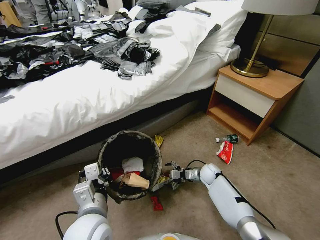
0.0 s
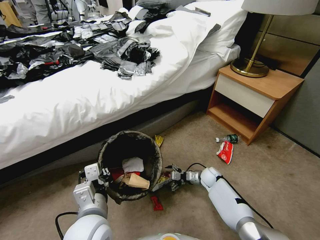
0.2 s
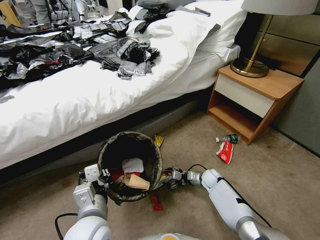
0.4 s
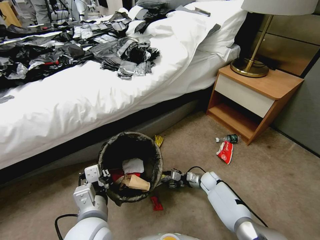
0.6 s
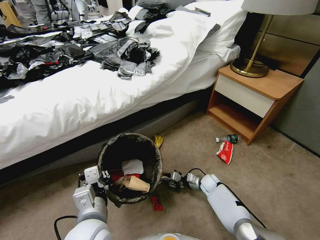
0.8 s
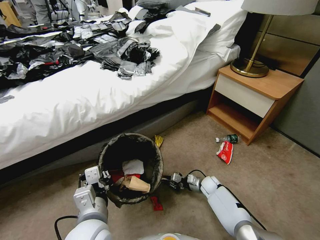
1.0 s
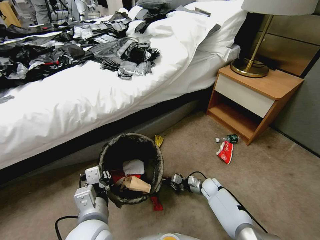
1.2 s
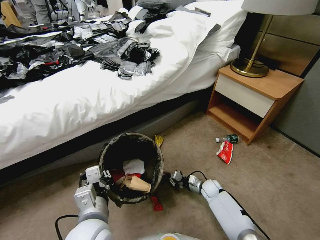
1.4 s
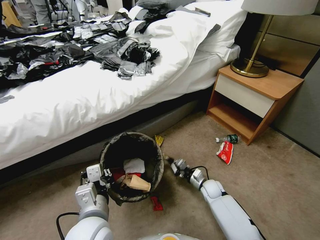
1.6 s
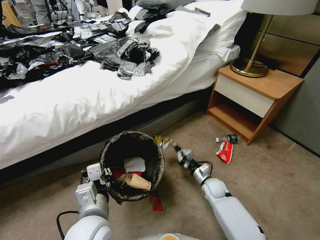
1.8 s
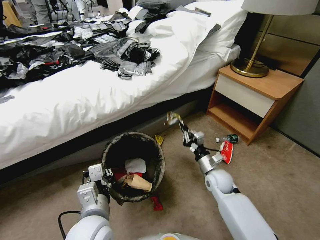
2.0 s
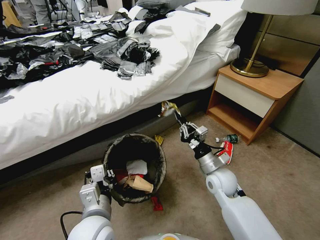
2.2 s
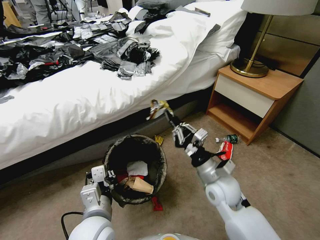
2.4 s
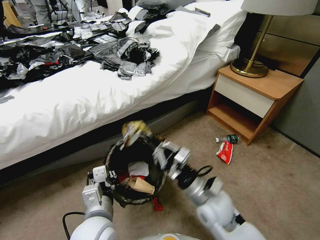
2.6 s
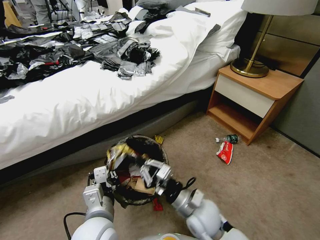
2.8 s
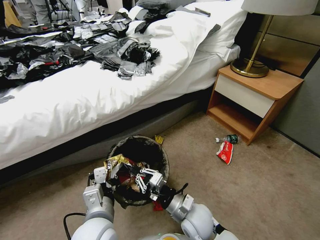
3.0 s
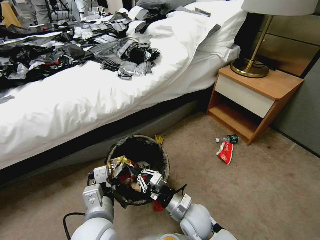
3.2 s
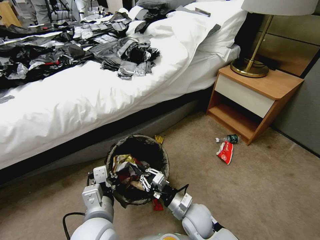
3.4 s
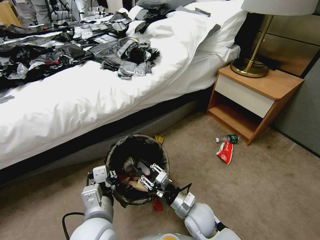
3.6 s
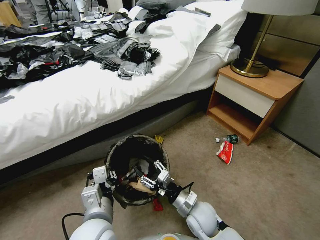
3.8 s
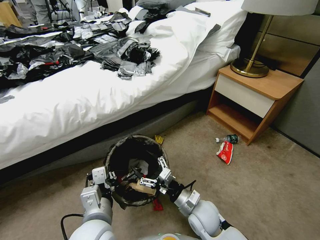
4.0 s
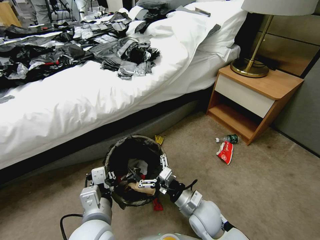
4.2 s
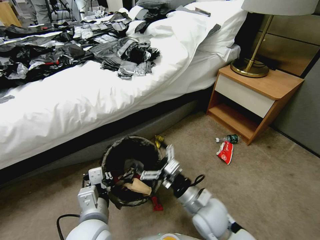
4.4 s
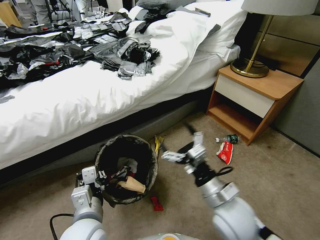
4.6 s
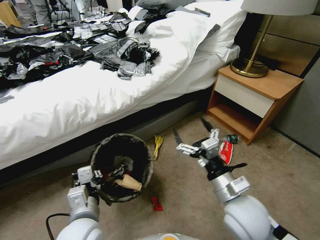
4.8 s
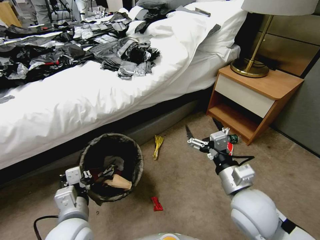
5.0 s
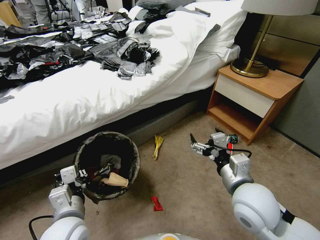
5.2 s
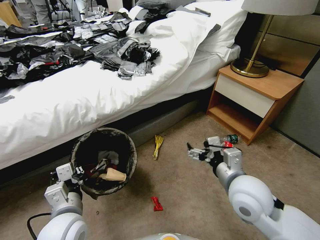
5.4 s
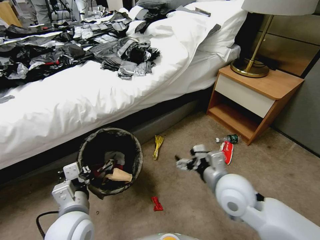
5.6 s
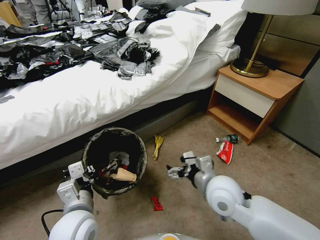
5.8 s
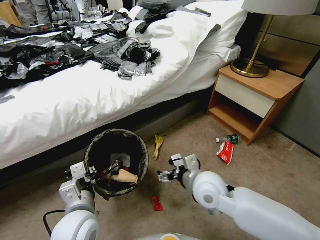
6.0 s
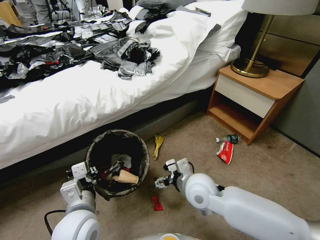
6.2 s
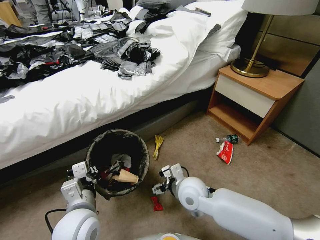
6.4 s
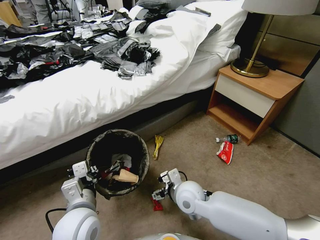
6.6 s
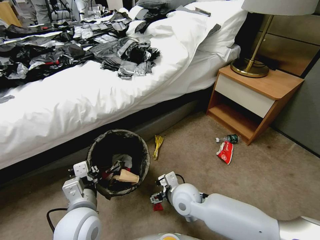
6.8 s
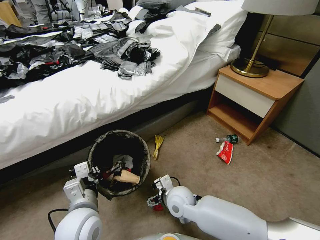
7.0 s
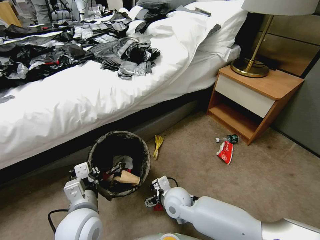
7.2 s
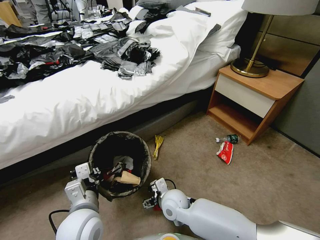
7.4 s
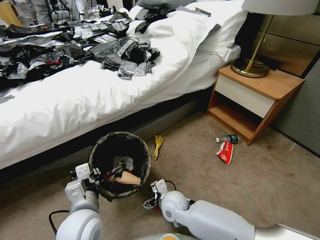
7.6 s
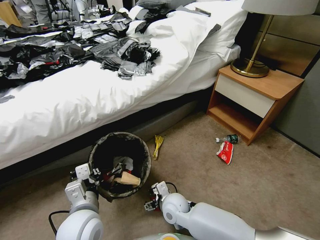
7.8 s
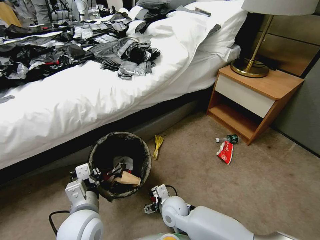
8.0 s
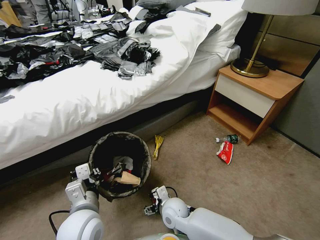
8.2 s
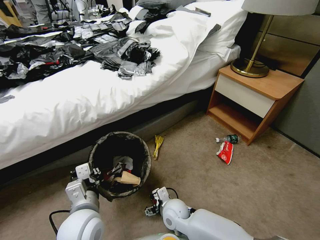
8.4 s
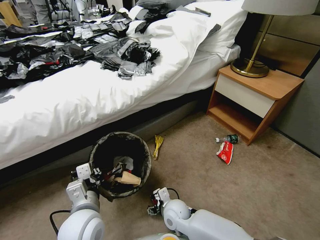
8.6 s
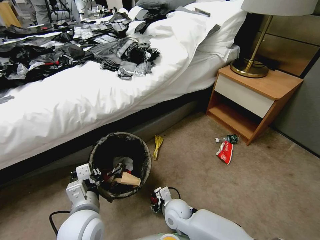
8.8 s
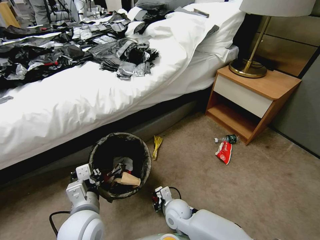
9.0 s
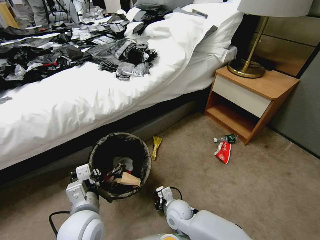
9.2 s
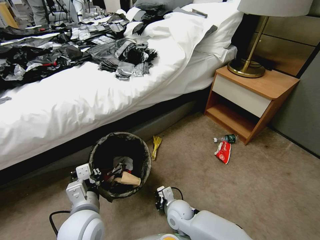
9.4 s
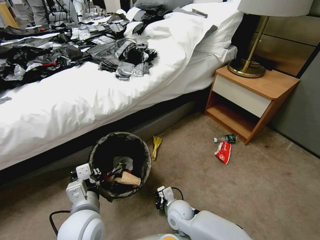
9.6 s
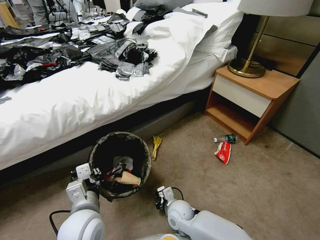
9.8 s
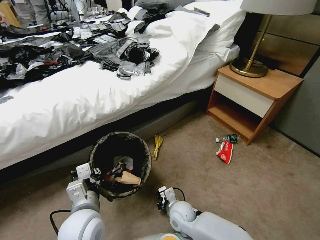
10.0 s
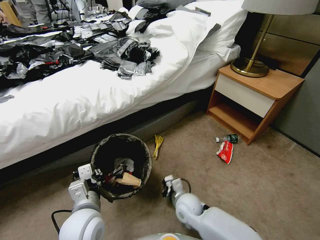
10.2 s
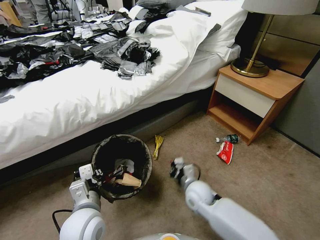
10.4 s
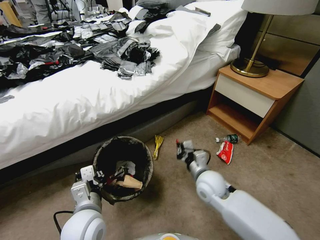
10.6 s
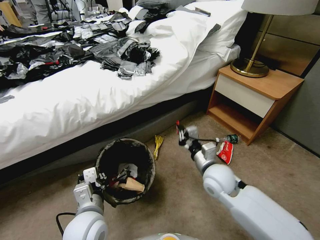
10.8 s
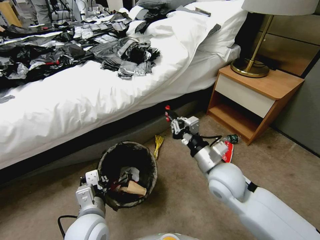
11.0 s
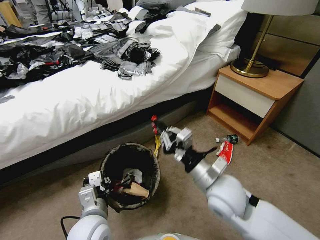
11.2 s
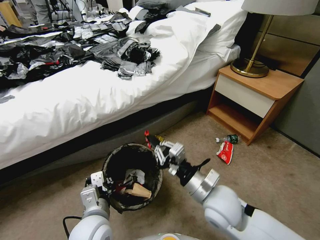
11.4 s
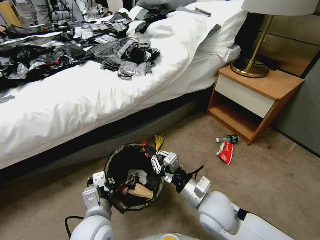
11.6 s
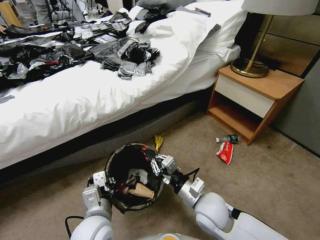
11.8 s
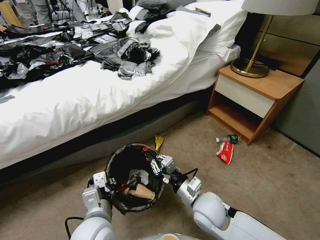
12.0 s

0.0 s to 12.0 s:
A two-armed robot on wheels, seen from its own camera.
Task of the whole recording: Pick up the trash bin, then pick up the garbage from the floor and place it into the trash bin.
0.0 to 1.6 s: The right gripper heads backward, covering roughly 5 cm, and closes up.
1.6 to 3.0 s: The right gripper heads upward, backward and to the left, covering some 25 cm.
3.0 to 4.4 s: The right gripper moves upward, some 5 cm, and opens its fingers.
4.4 to 6.0 s: The right gripper moves upward and forward, about 10 cm.
6.0 to 7.6 s: The right gripper goes approximately 20 cm downward and to the left.
7.6 to 9.0 s: The right gripper is displaced downward by approximately 5 cm, and closes its fingers.
9.0 to 10.4 s: The right gripper heads upward and to the right, covering approximately 10 cm.
10.4 to 12.0 s: The right gripper shifts about 10 cm upward and backward.

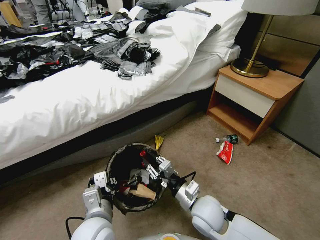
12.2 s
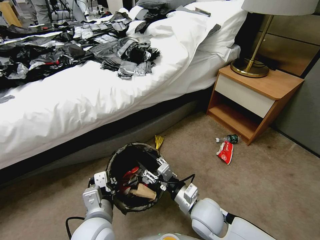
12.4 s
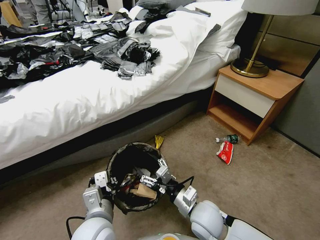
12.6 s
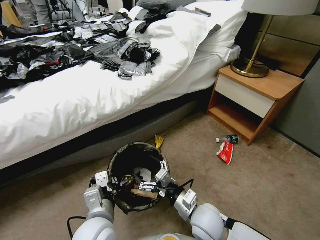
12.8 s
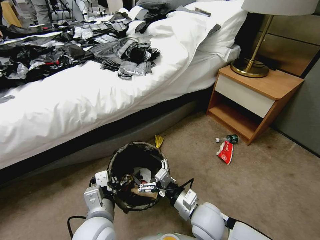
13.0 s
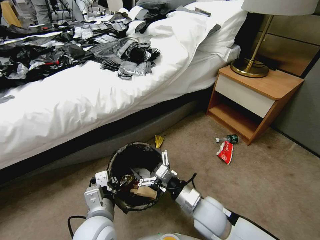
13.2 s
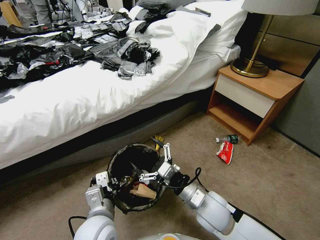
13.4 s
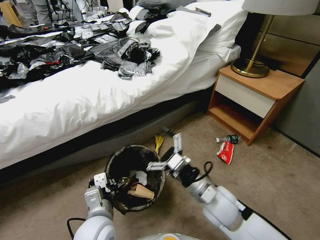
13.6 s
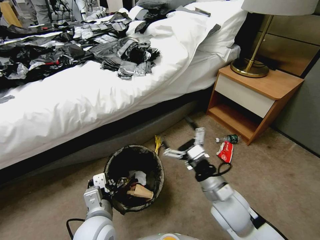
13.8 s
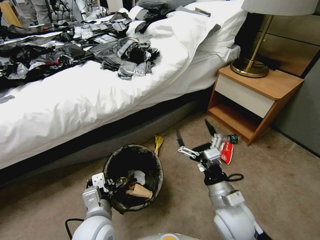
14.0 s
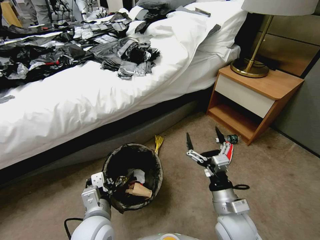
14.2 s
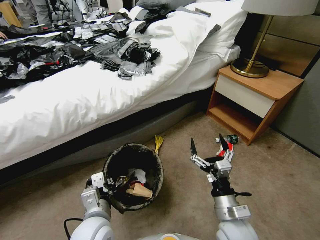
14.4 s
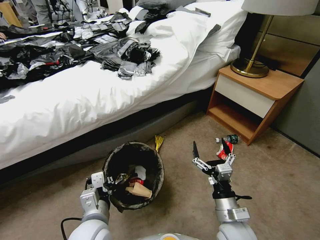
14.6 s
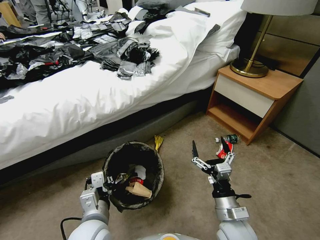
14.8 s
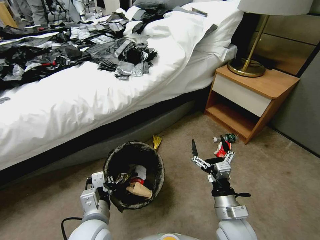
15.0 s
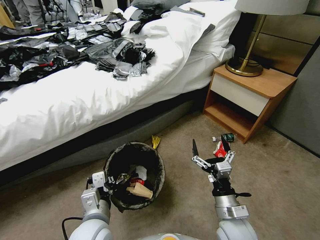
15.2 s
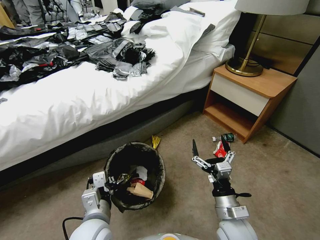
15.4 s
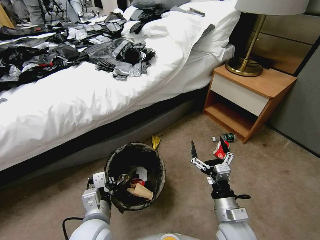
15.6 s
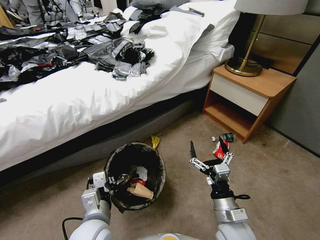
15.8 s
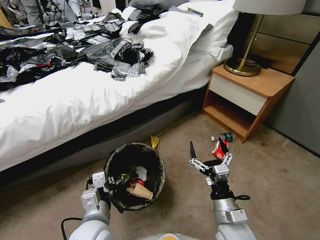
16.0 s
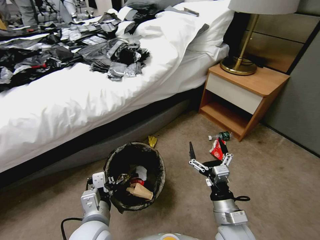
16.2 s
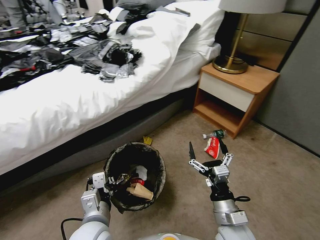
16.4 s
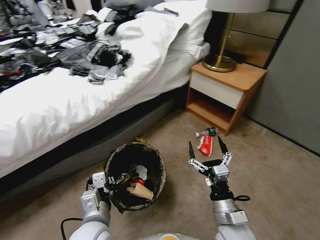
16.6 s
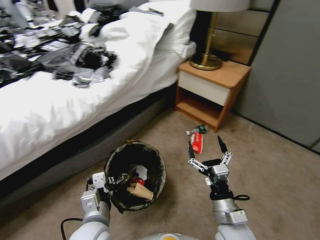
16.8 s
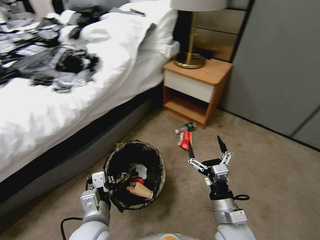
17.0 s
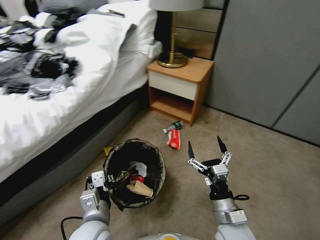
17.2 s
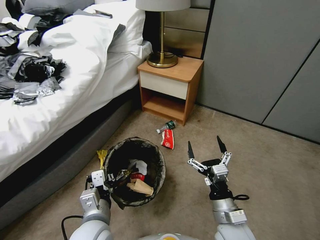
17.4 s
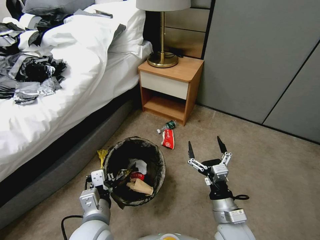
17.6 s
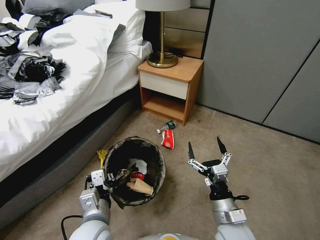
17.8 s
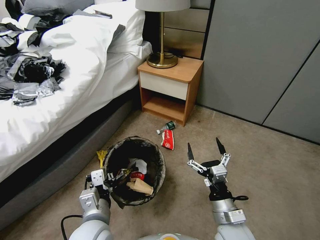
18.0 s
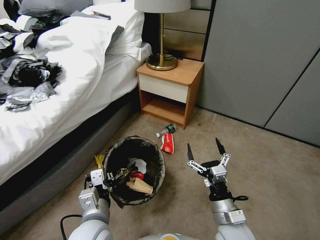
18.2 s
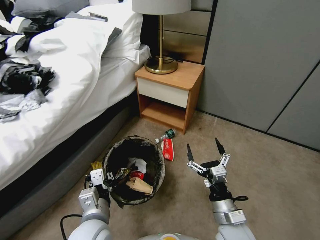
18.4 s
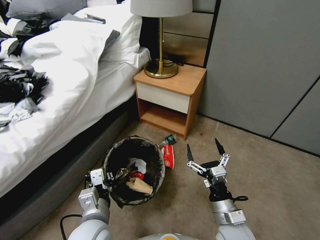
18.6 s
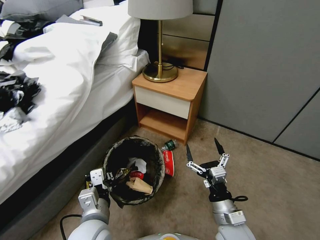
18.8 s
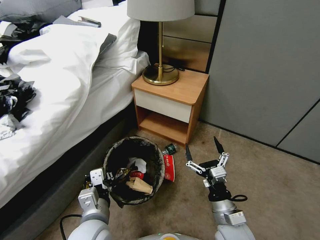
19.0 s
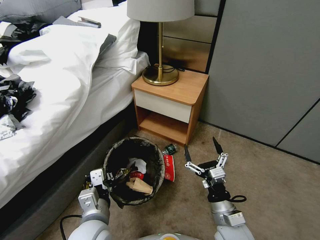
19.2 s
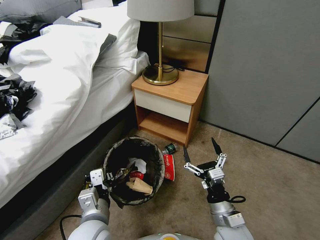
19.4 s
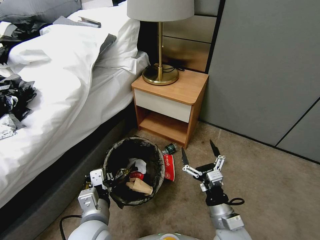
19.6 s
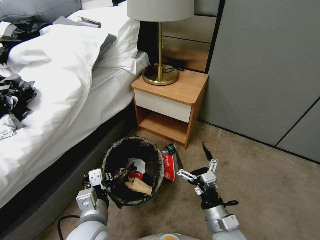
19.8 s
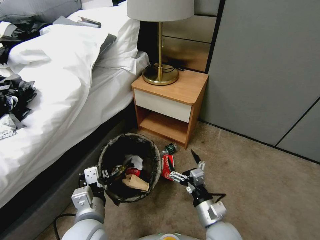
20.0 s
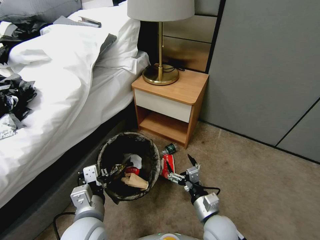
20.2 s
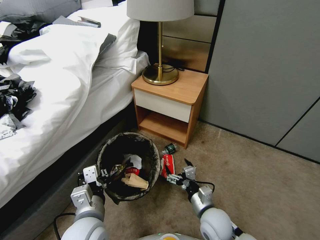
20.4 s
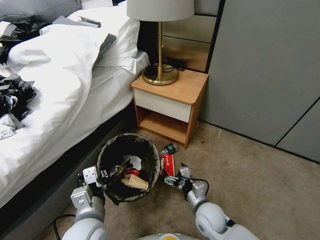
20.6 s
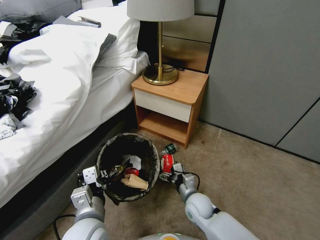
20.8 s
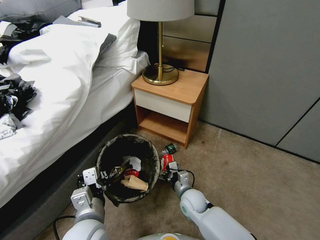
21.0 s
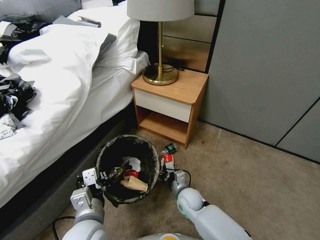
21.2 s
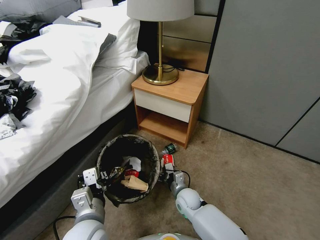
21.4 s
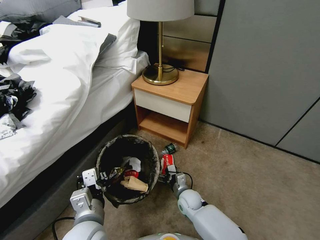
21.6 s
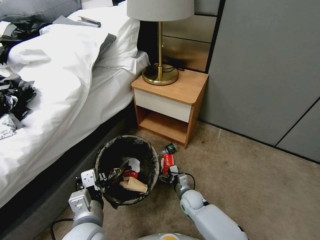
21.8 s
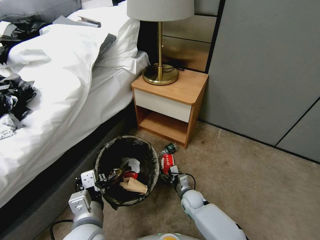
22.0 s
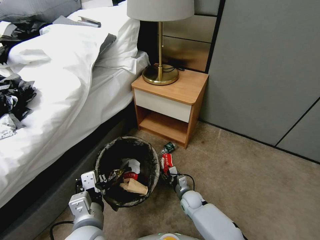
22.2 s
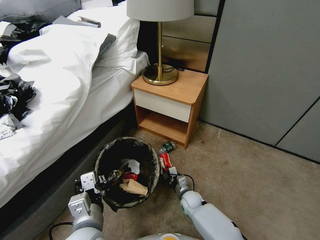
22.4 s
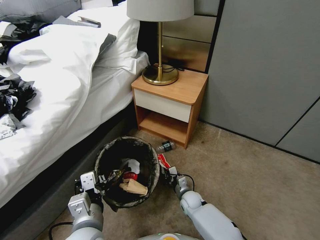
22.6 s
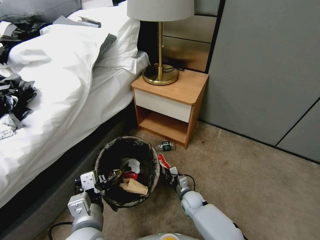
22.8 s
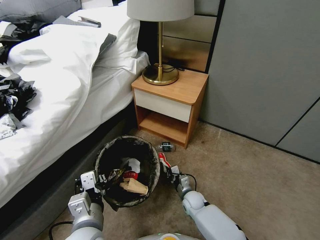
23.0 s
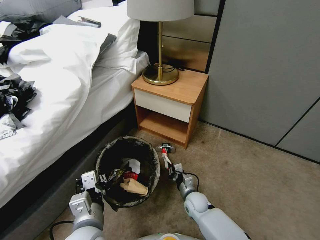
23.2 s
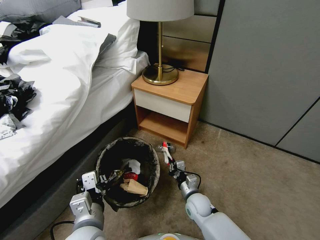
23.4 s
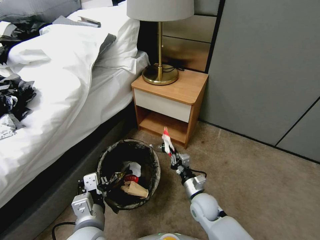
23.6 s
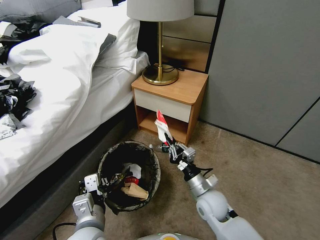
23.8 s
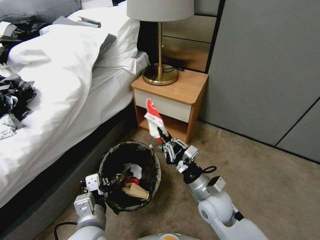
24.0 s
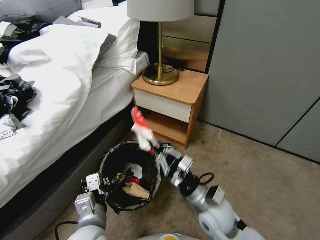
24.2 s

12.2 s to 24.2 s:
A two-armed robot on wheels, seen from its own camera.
Task of the whole recording: Pick up the trash bin, then pick up the garbage from the floor and place it into the trash bin.
12.2 to 13.8 s: The right gripper travels upward by about 5 cm, and opens.
13.8 to 15.2 s: The right gripper travels downward and backward by about 10 cm.
19.8 to 21.2 s: The right gripper is displaced forward, downward and to the left by approximately 20 cm.
21.2 to 22.6 s: The right gripper is displaced downward by approximately 10 cm, and closes up.
22.6 to 24.2 s: The right gripper moves upward, roughly 25 cm.
